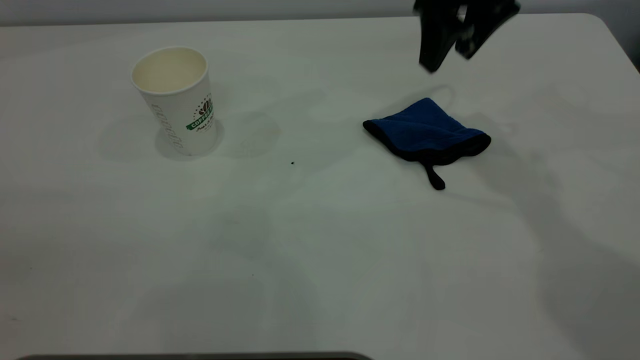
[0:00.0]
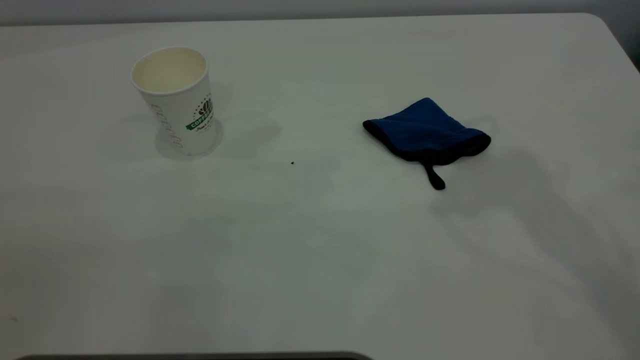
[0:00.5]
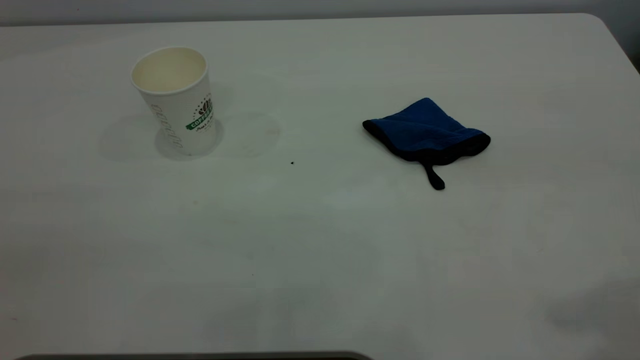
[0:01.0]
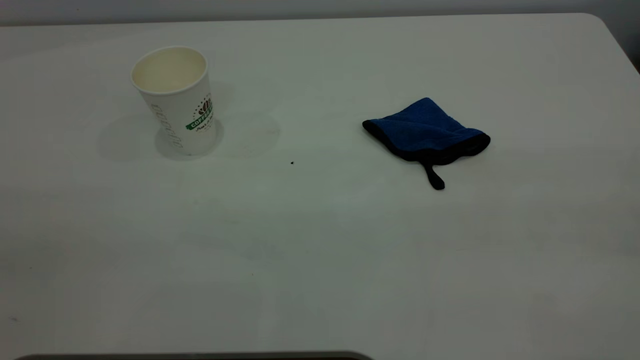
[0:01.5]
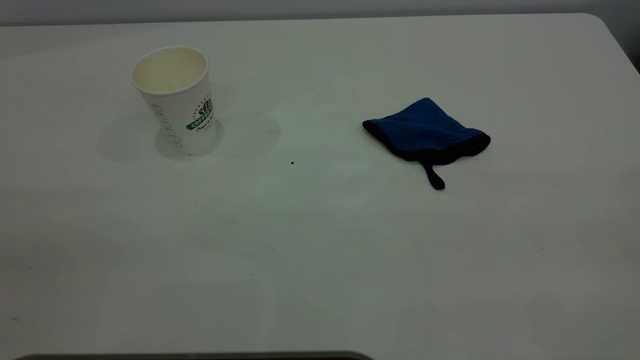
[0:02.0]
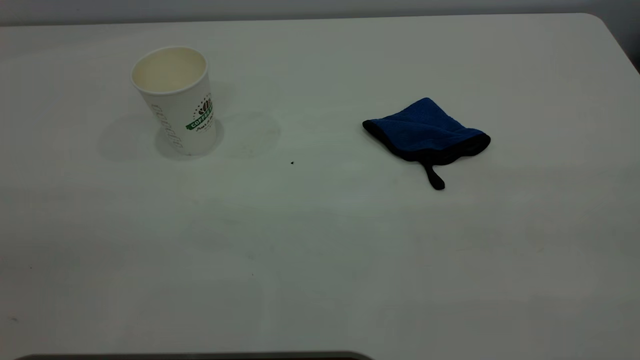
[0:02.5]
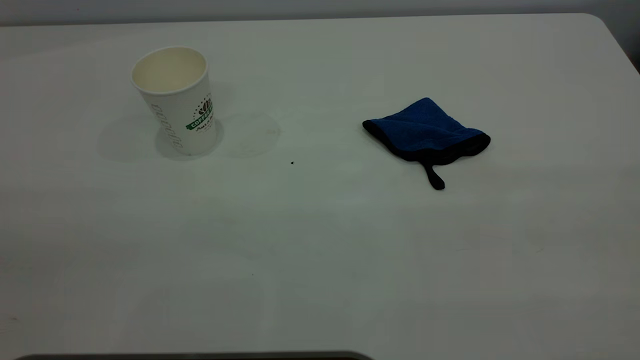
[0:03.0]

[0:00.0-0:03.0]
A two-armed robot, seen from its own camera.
Task of the whole recording: the left gripper pick up the fallen cup and place it upright, the right gripper grasp the blue rag and wipe the tea stain on the table, the right gripper put the blue rag back in its original position.
0:00.0 to 0:01.5: The right gripper is displaced backward by some 40 cm.

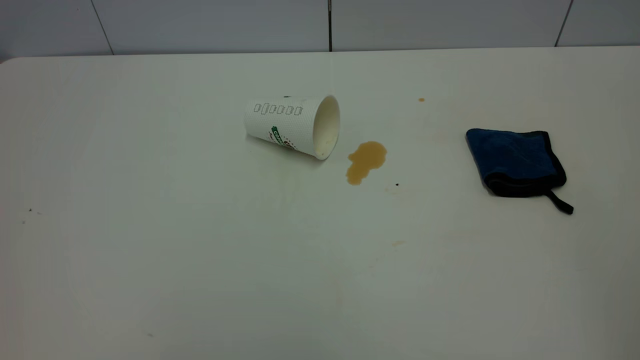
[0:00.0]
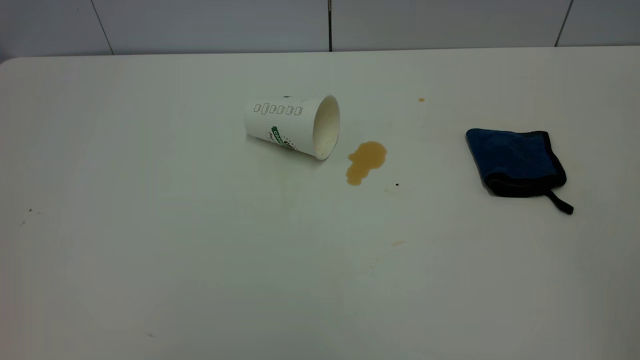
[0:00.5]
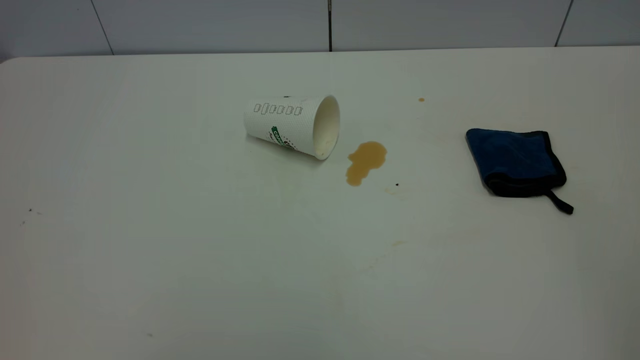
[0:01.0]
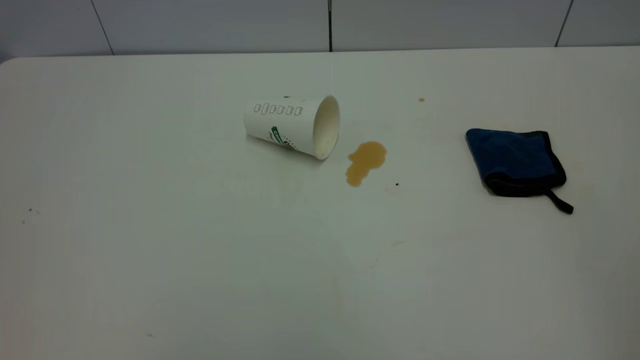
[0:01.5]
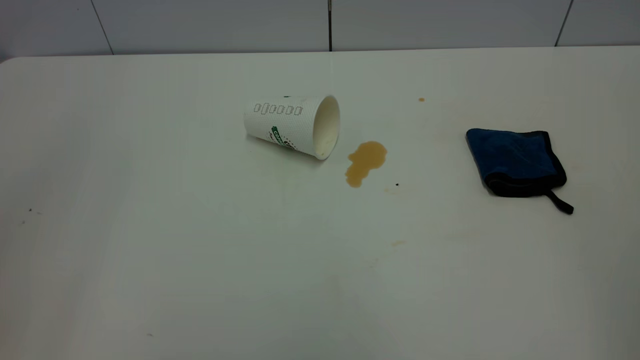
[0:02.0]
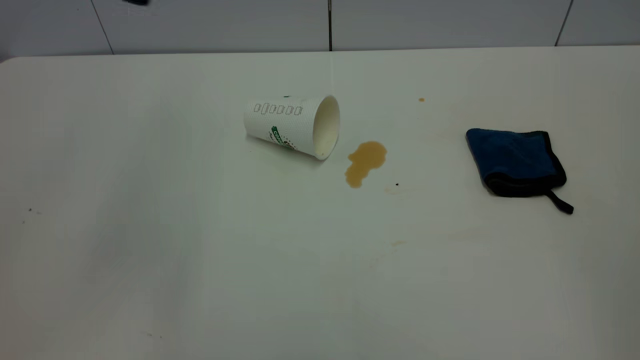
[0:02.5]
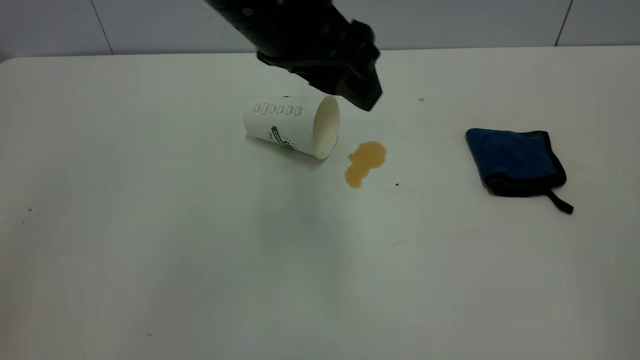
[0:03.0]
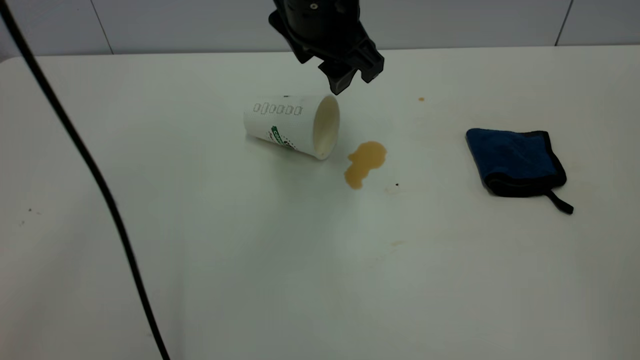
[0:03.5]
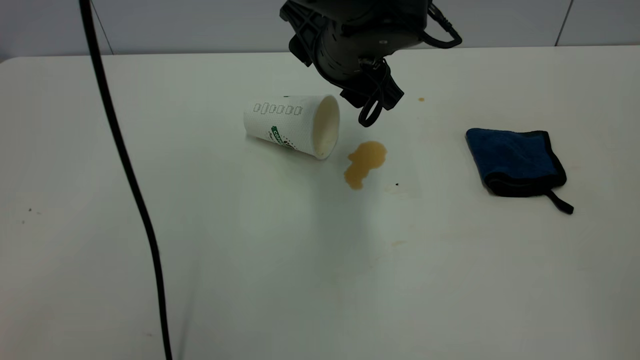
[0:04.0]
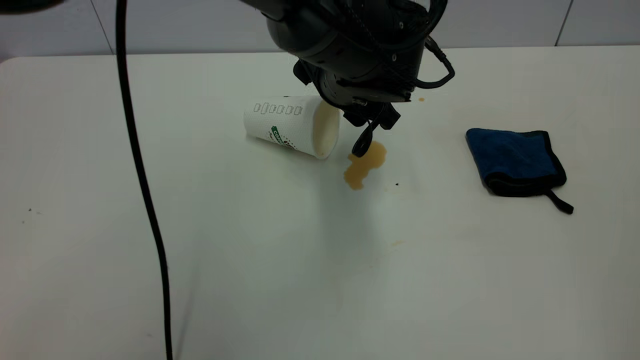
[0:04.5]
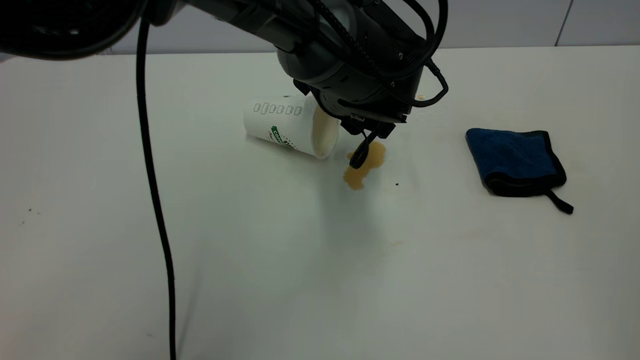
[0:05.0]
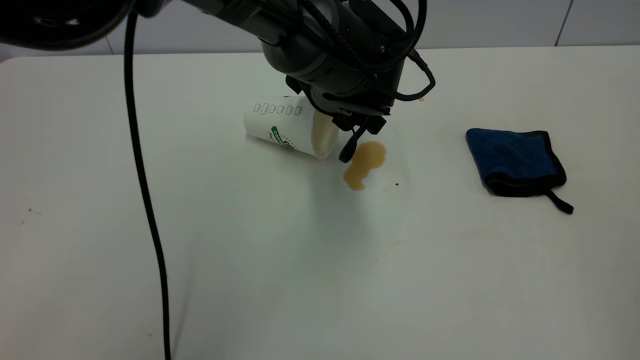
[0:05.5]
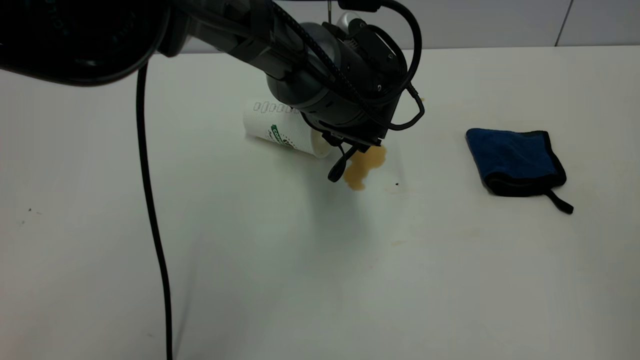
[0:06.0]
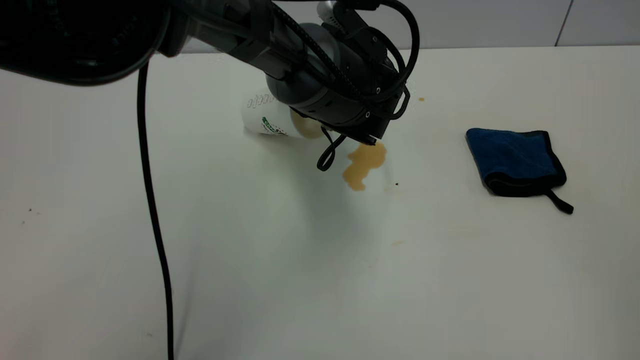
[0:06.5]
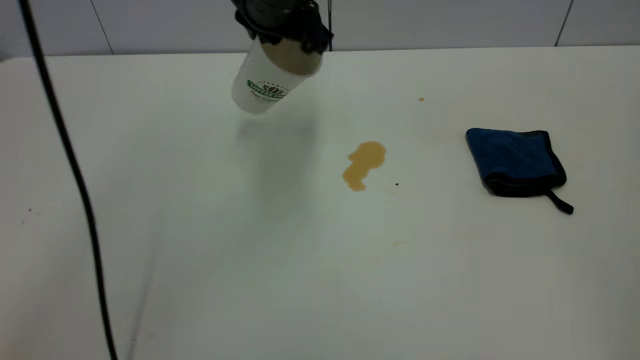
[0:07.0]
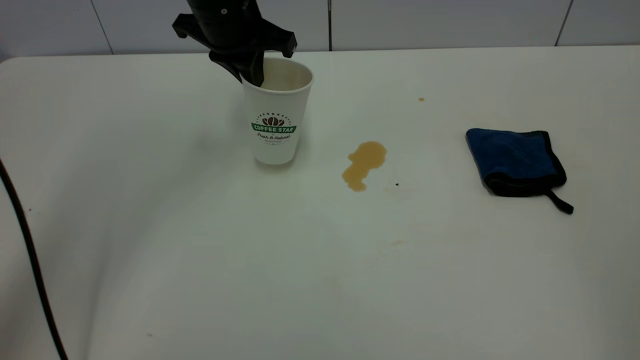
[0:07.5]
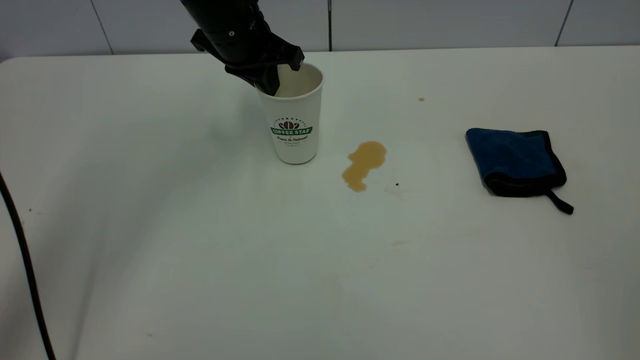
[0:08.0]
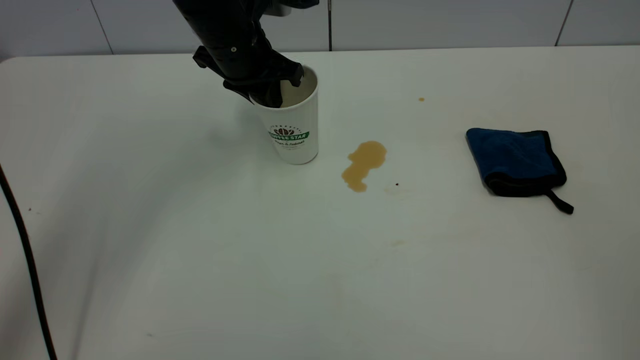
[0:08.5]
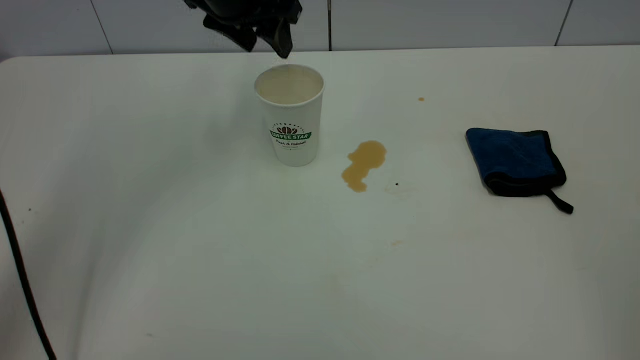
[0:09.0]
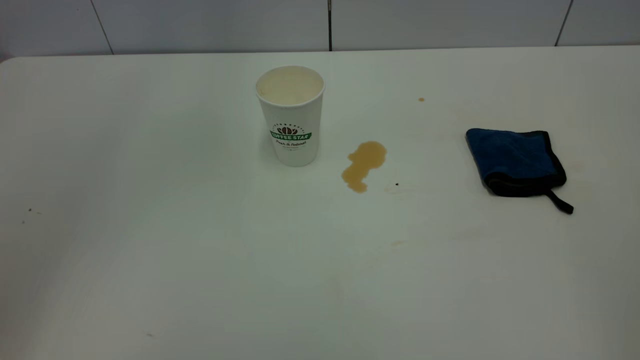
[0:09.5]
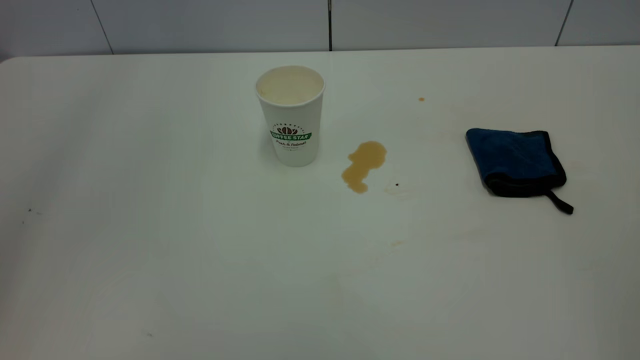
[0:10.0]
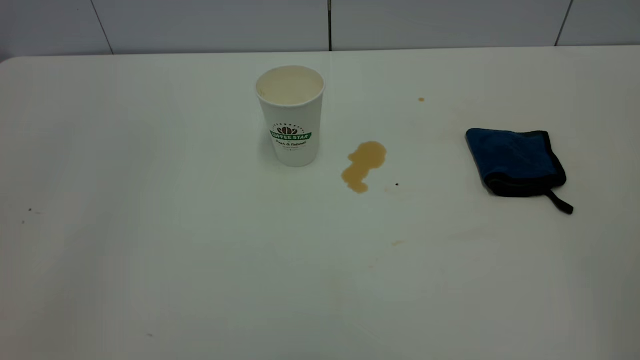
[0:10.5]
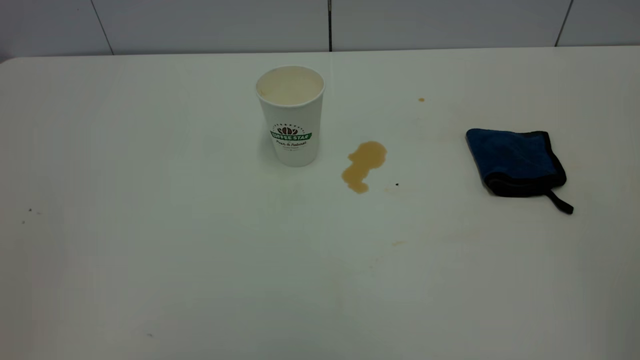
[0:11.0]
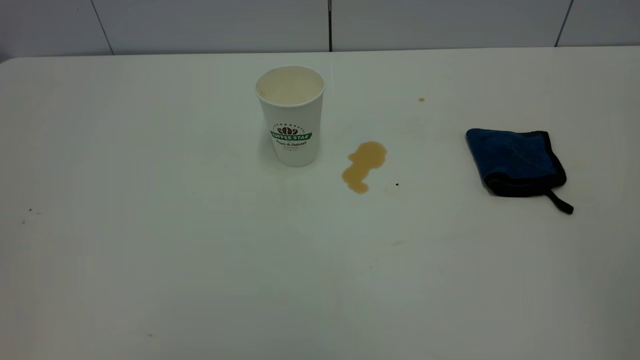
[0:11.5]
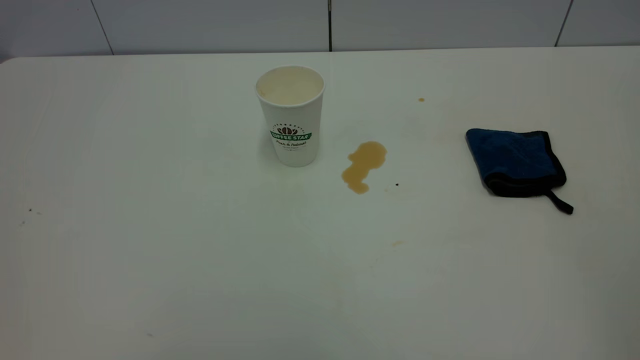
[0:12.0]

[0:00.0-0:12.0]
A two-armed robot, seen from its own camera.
Task of the whole recording: the left gripper pick up the fallen cup and place it upright, the right gripper grasp the blue rag and wipe the tea stain on the table, the right gripper put the blue rag back in its original position.
Step, 0:00.0 to 0:08.5: Stand the paper cup upright.
0:02.0 to 0:04.0: The left gripper heads to the right, forward and downward, covering about 40 cm.
0:04.0 to 0:06.0: The left gripper goes some 10 cm downward.
0:06.0 to 0:08.0: The left gripper goes roughly 15 cm to the left, forward and upward, and closes.
0:08.0 to 0:10.0: The left gripper heads upward and backward, covering about 40 cm, and opens its fingers.

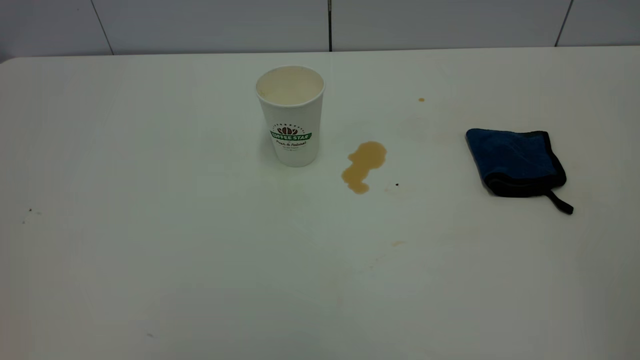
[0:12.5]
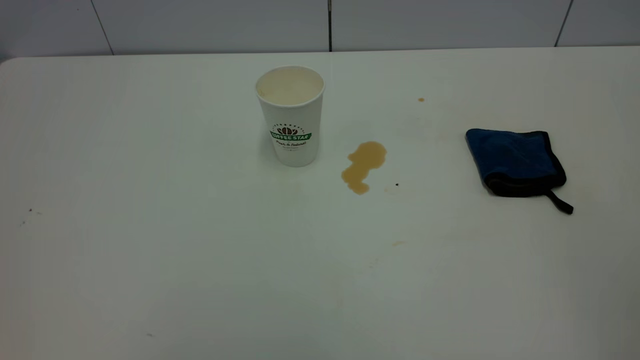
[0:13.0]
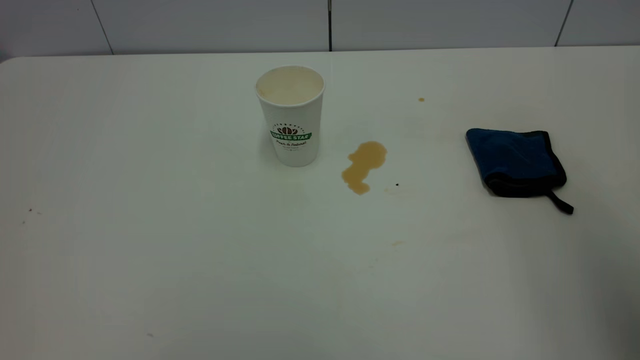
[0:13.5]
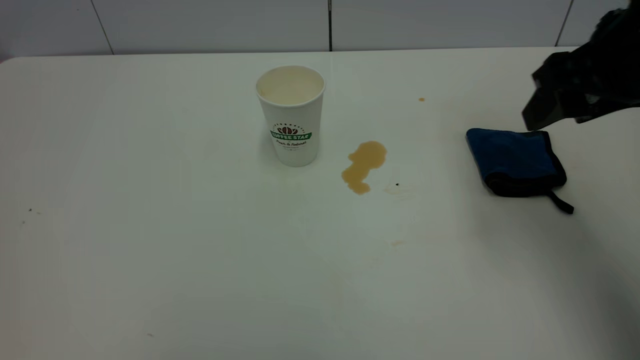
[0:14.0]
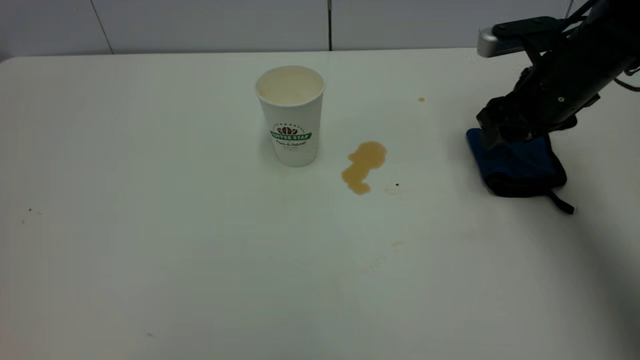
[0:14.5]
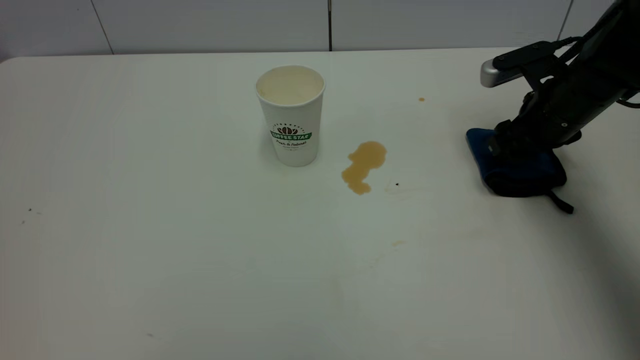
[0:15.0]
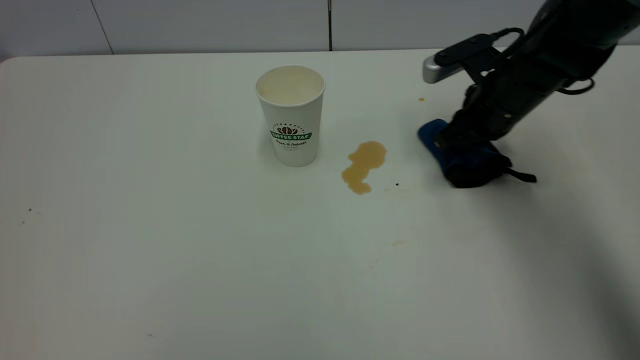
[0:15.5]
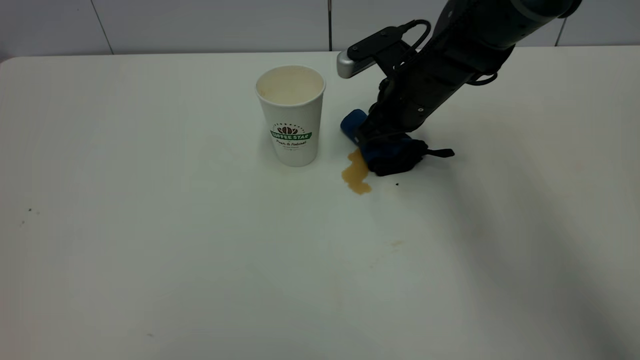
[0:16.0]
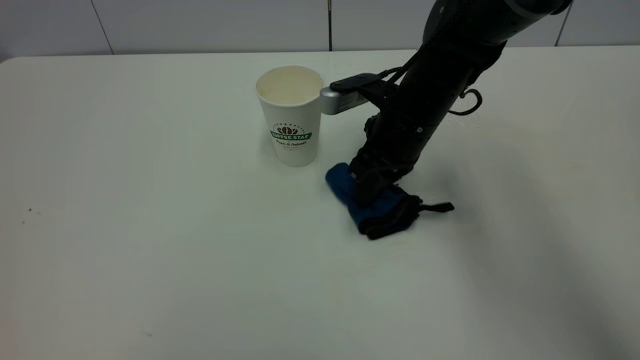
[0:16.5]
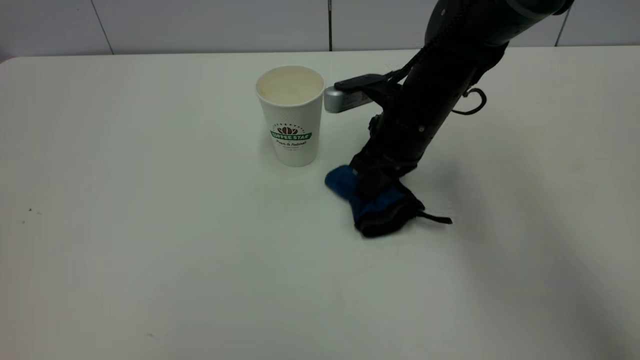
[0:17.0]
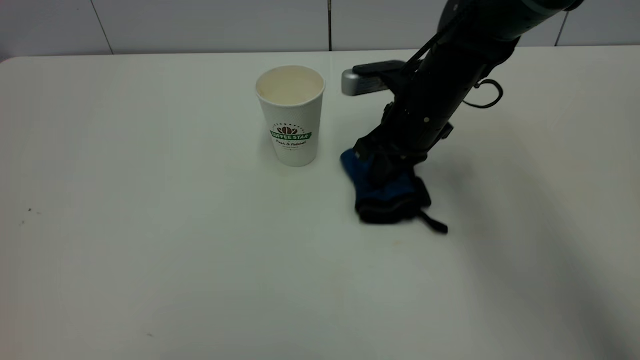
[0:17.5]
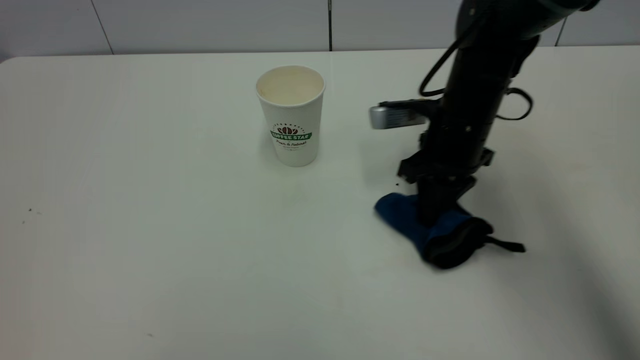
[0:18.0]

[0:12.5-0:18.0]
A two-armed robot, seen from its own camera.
Task of the whole recording: the left gripper pick up the fallen cup and place it upright, the right gripper grasp the blue rag and wipe the tea stain on the table, the right gripper put the blue rag back in its original position.
0:12.5 to 0:14.5: The right gripper goes about 50 cm forward and downward.
0:14.5 to 0:16.0: The right gripper travels to the left by about 15 cm, and closes up.
0:16.0 to 0:18.0: The right gripper heads to the right, covering about 5 cm.
